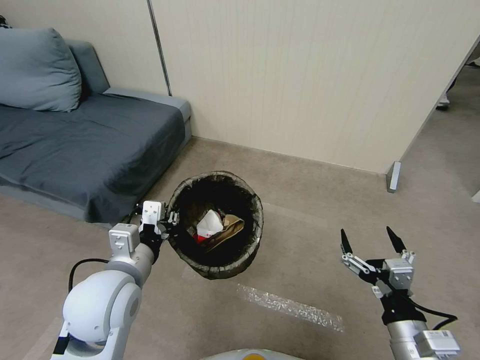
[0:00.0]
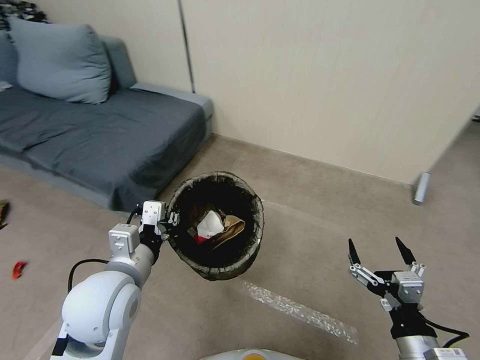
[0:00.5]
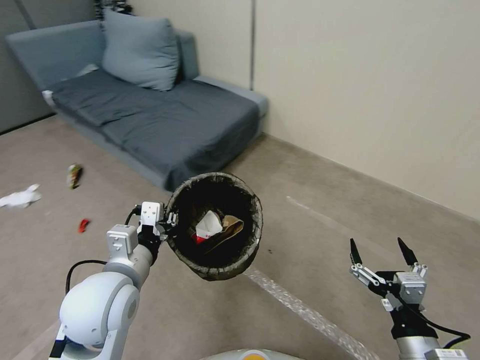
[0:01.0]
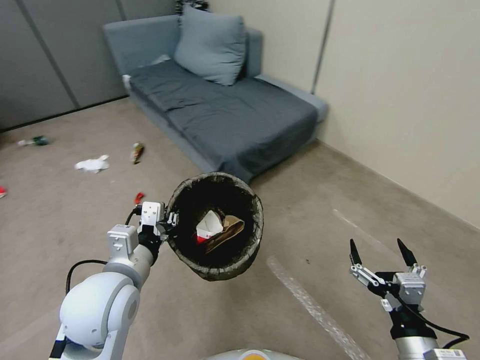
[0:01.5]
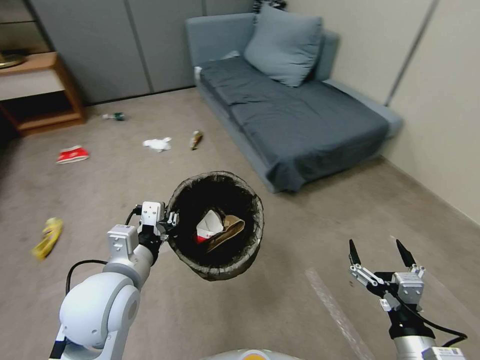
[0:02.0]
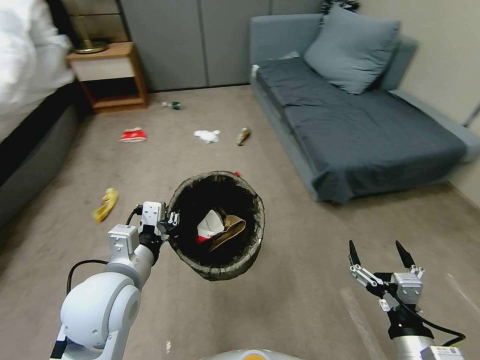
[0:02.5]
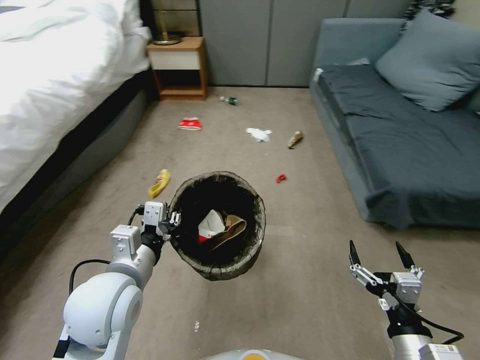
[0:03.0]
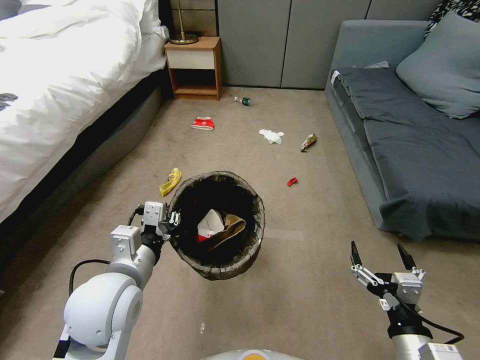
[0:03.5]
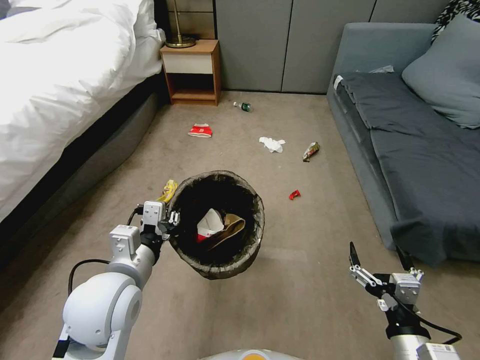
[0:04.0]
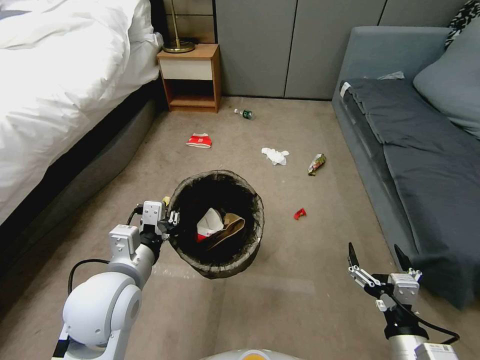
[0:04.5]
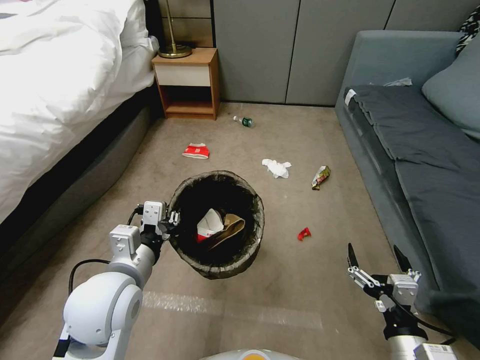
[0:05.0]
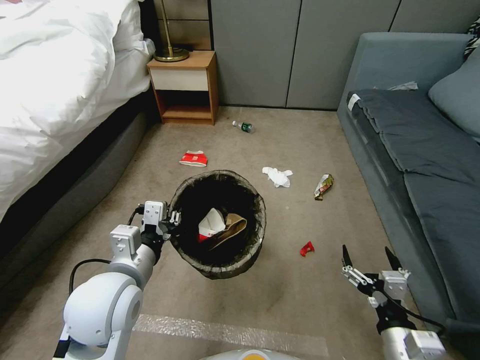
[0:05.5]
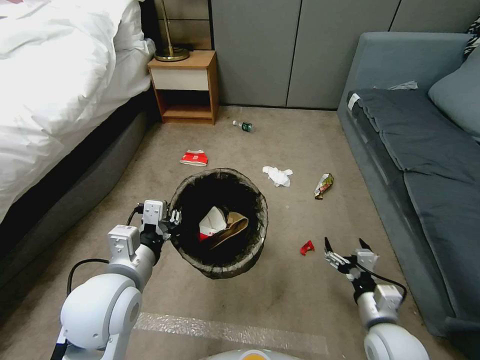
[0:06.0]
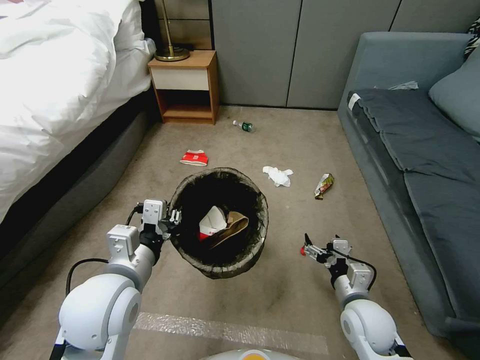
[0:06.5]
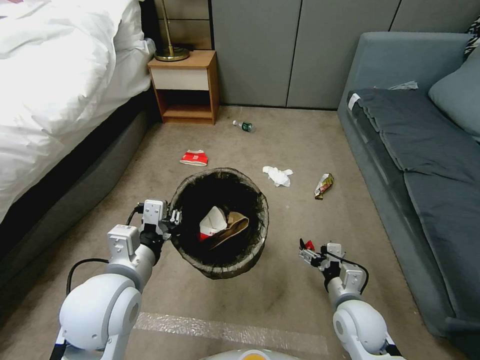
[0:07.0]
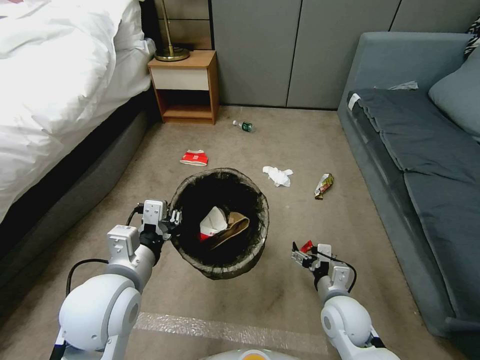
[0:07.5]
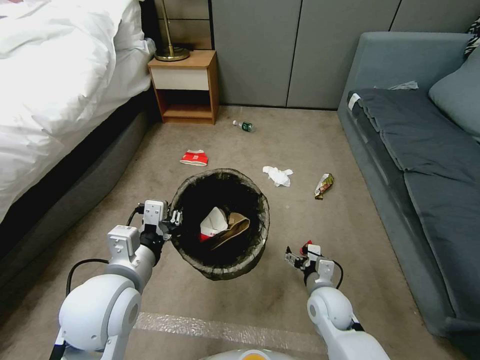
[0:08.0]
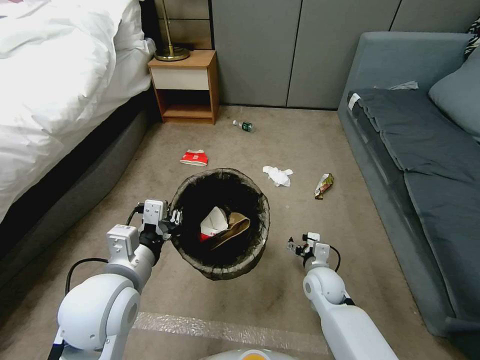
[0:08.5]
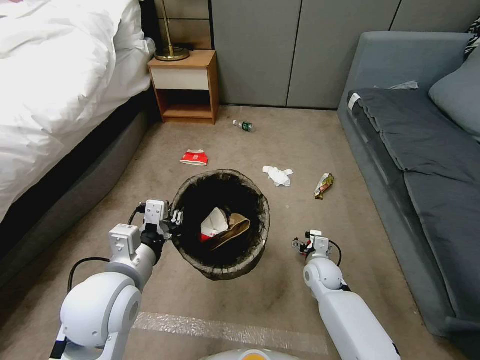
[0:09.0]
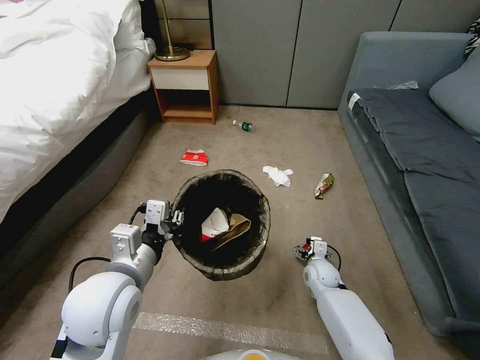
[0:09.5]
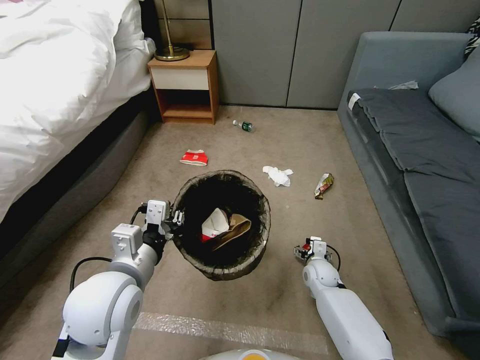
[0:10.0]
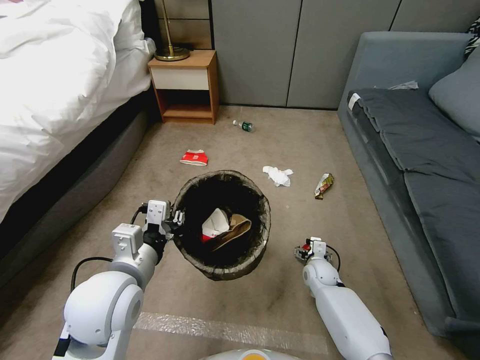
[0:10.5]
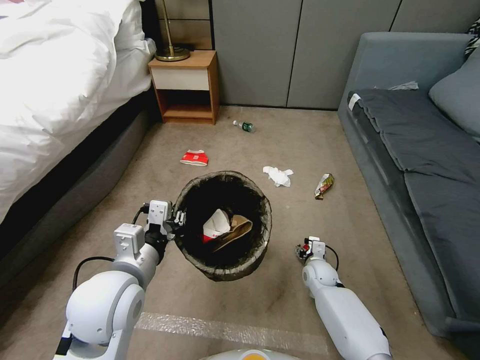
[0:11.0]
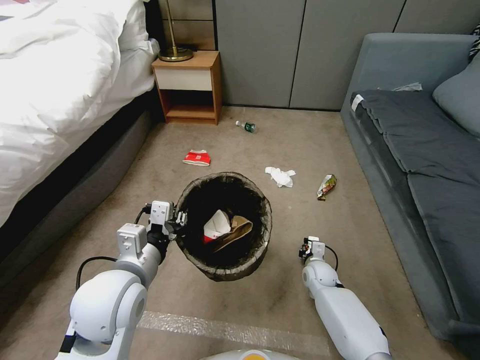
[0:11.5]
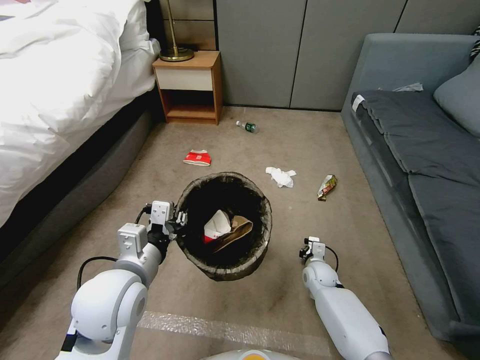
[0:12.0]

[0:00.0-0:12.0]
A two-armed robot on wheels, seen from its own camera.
Task of the whole recording: Pick up the trash bin, then pick up the garbage from the floor and place it into the trash bin.
0:04.0 to 0:06.0: The right gripper shifts about 10 cm forward and downward.
0:06.0 to 0:08.0: The right gripper is displaced forward, to the left and downward by approximately 15 cm.
0:08.0 to 0:10.0: The right gripper goes about 10 cm forward and downward.
0:10.0 to 0:12.0: The right gripper closes its fingers.

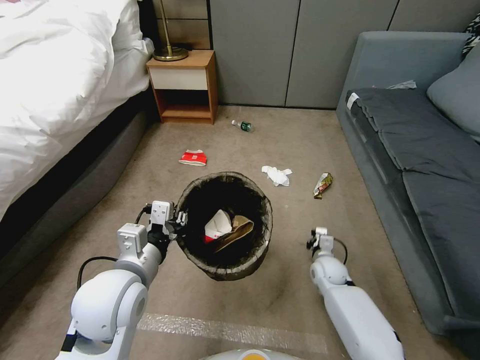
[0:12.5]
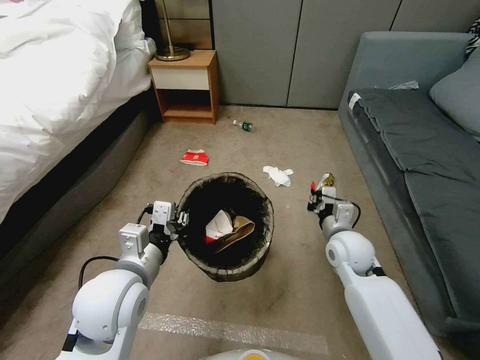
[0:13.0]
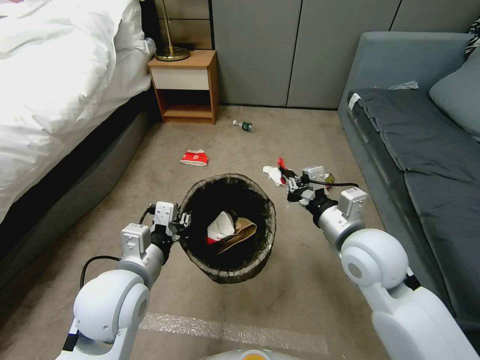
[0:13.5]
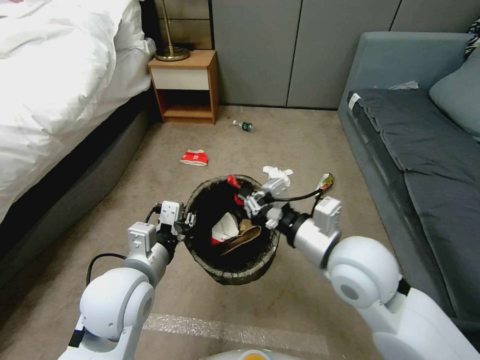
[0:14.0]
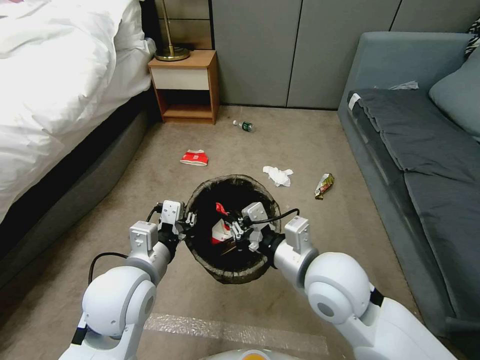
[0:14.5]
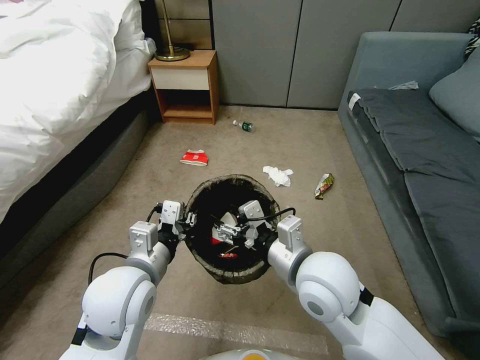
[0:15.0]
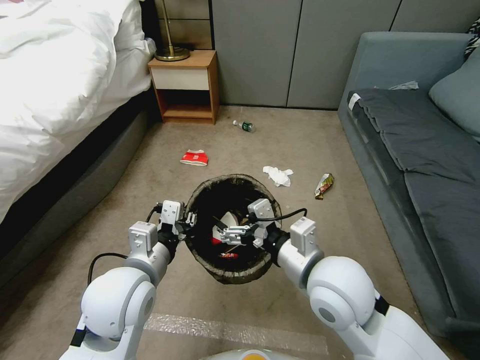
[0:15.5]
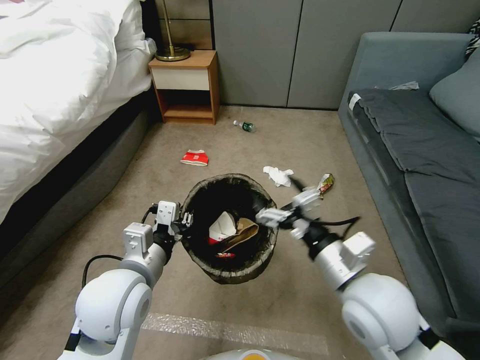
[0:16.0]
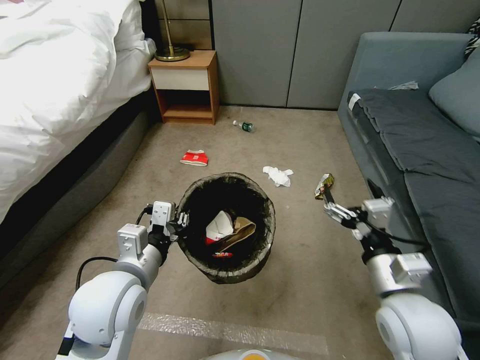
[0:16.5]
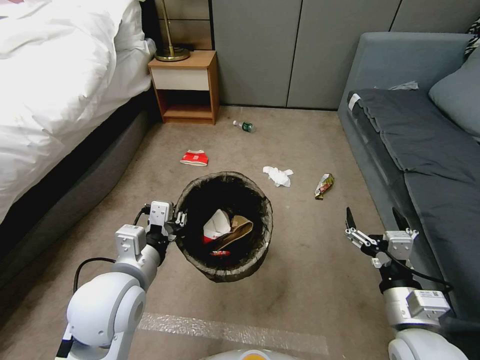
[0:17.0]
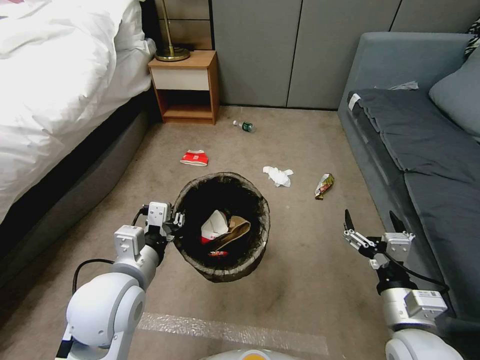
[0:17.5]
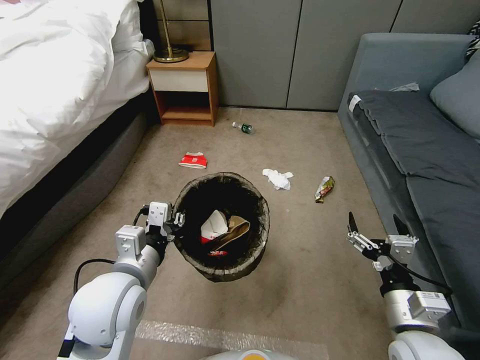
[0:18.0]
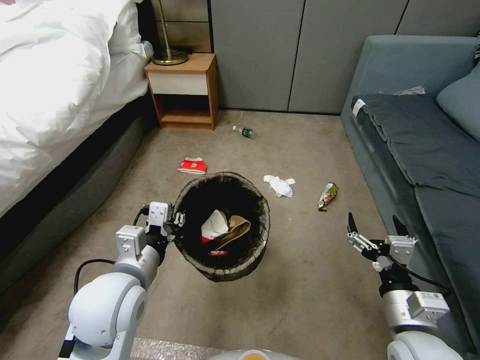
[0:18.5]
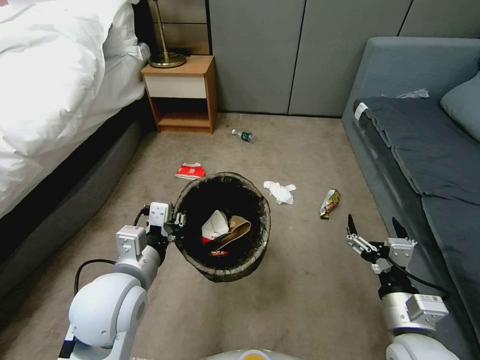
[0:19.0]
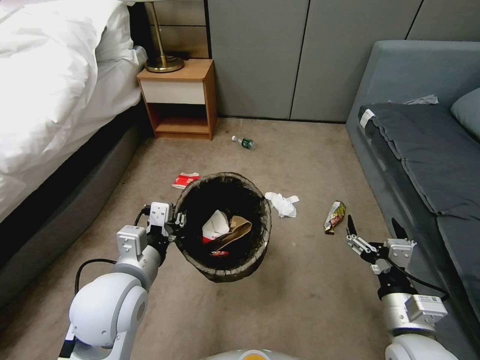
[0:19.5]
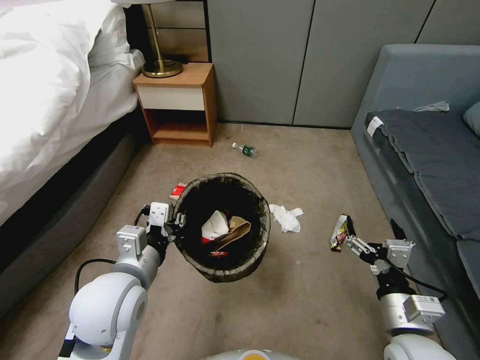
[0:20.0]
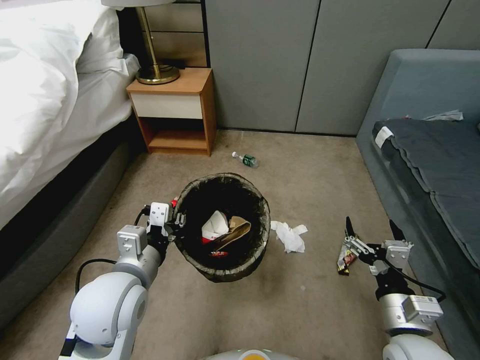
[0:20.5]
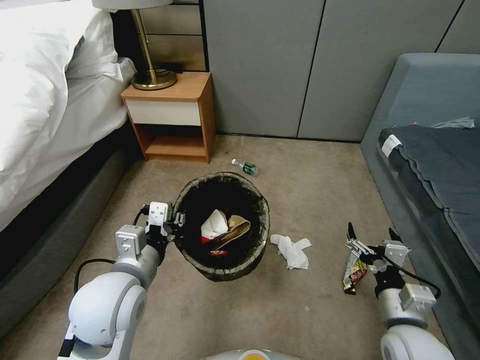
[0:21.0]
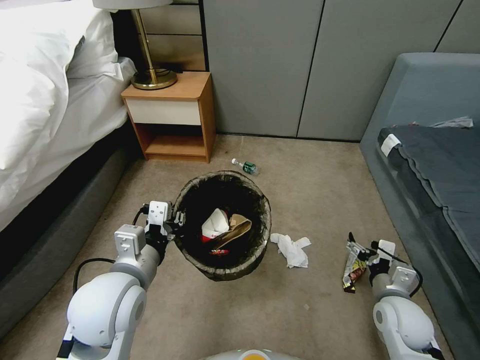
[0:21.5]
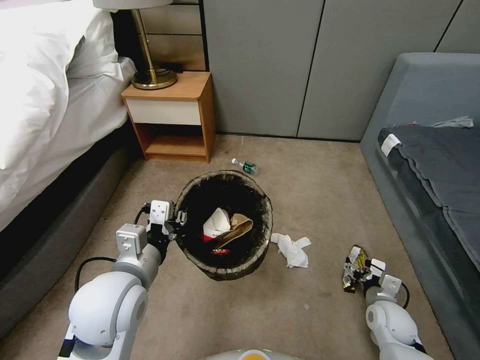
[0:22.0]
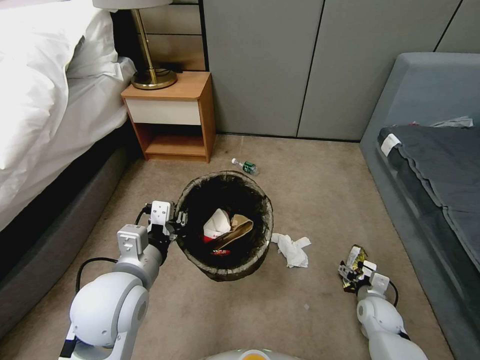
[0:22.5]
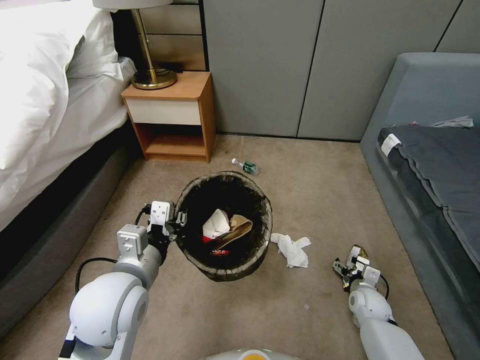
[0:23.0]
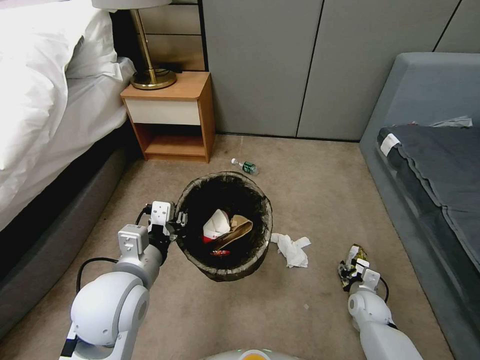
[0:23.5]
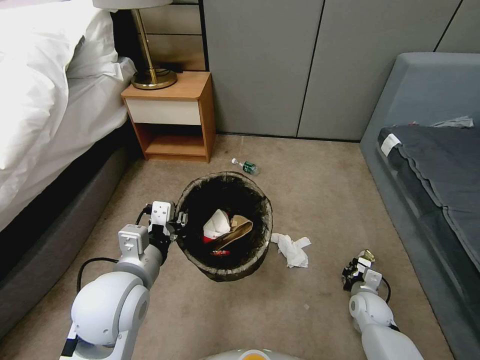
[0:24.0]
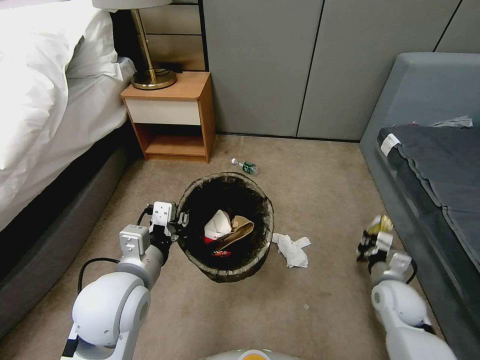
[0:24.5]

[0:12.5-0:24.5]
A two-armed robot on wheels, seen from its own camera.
Task of the whole recording: Pick up the trash bin, then pick up the garbage from the floor and place it into the trash bin.
0:12.5 to 0:14.5: The right gripper travels upward and backward by approximately 30 cm.
0:14.5 to 0:16.5: The right gripper is displaced to the right by some 15 cm, and opens its fingers.
0:16.5 to 0:18.5: The right gripper is displaced downward by some 5 cm.
0:20.5 to 0:22.5: The right gripper is displaced downward and forward by approximately 25 cm.
0:22.5 to 0:24.5: The right gripper moves upward, about 10 cm, and closes its fingers.

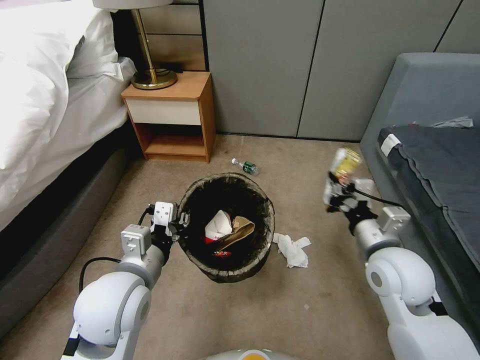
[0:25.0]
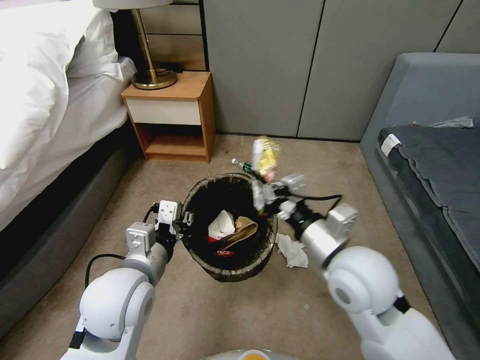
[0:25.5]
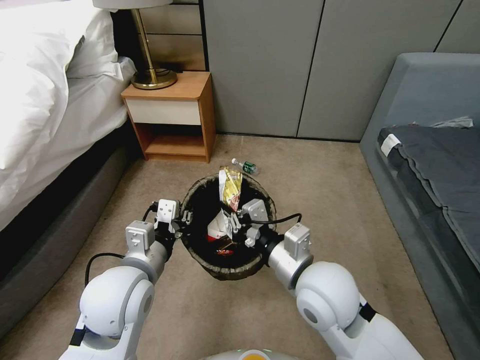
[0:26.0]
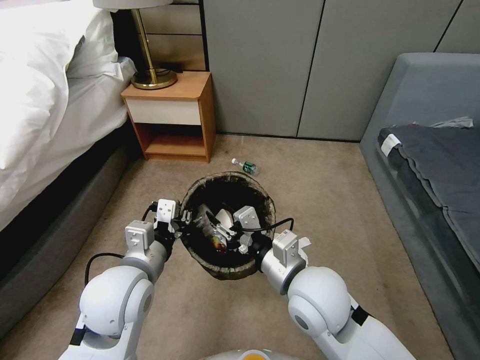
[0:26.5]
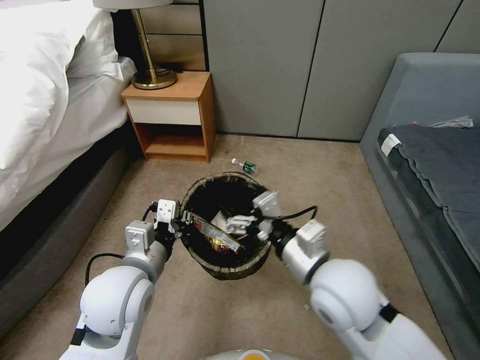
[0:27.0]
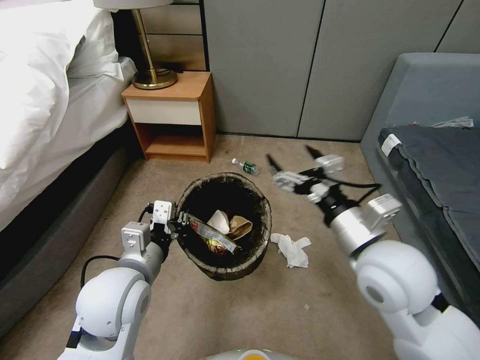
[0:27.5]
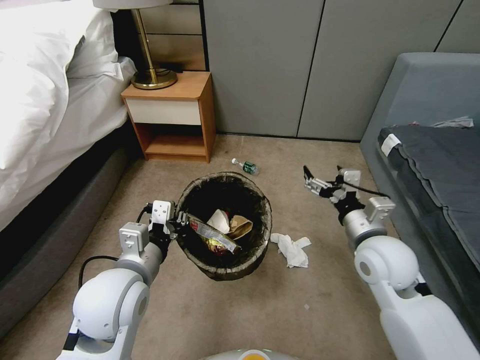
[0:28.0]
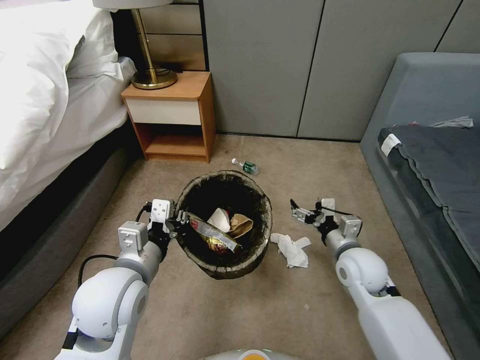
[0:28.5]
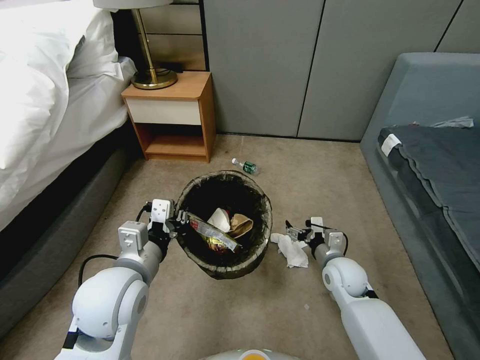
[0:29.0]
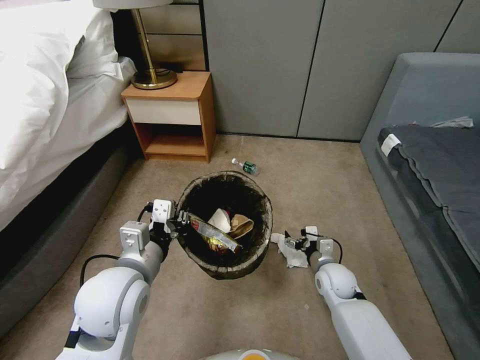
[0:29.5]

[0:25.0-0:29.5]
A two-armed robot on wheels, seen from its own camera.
Task of the whole recording: Pick up the trash bin, then pick up the garbage from the floor and place it into the trash bin.
0:25.0 to 0:27.0: The right gripper travels to the left by approximately 15 cm, and opens its fingers.
0:27.0 to 0:29.5: The right gripper heads downward, covering some 25 cm.
